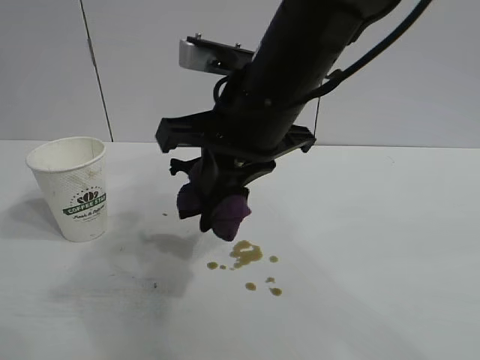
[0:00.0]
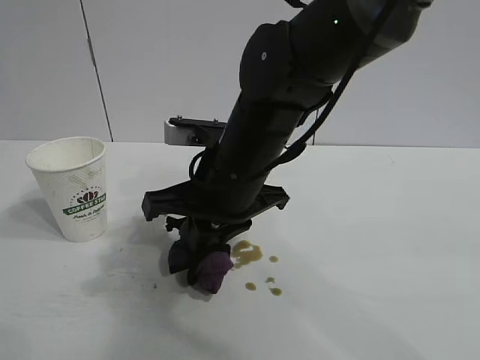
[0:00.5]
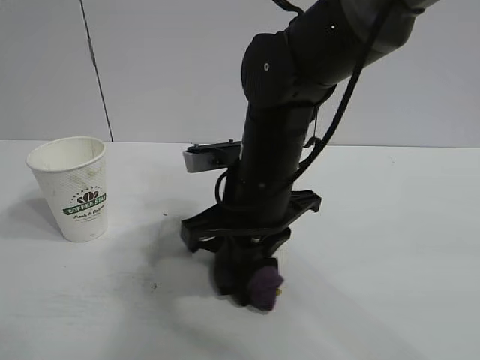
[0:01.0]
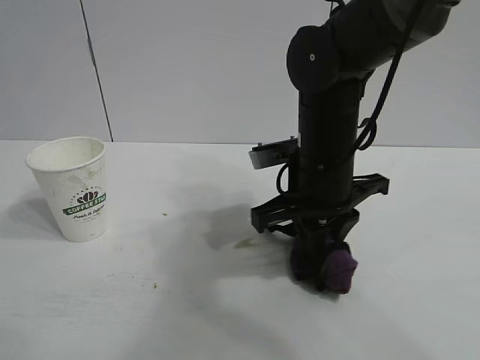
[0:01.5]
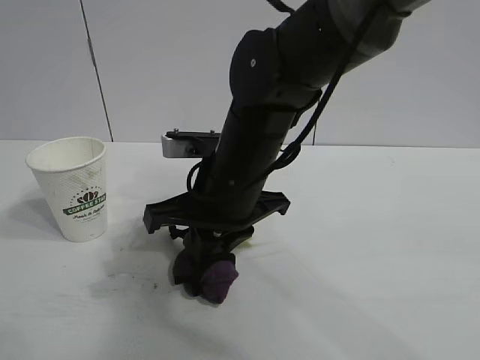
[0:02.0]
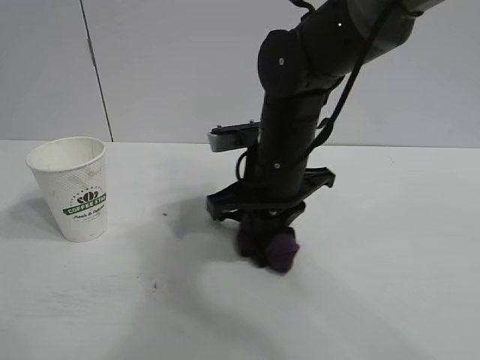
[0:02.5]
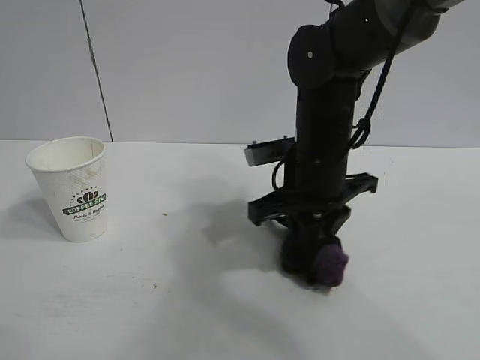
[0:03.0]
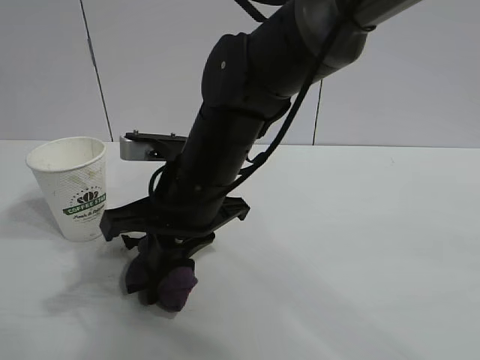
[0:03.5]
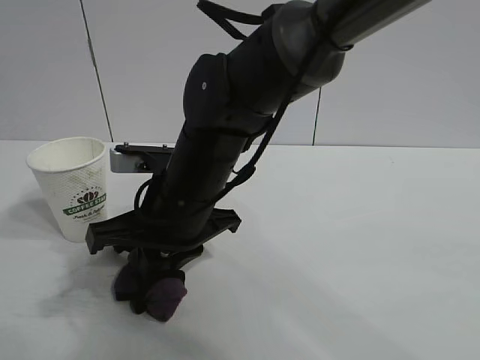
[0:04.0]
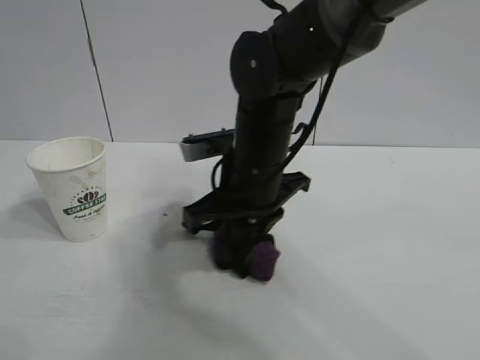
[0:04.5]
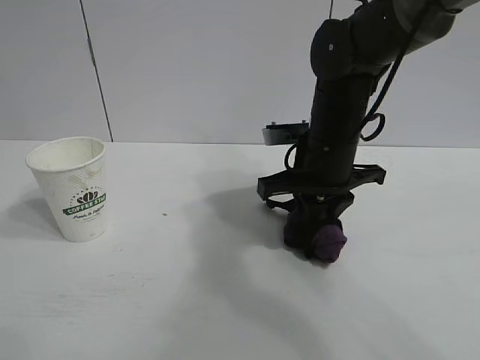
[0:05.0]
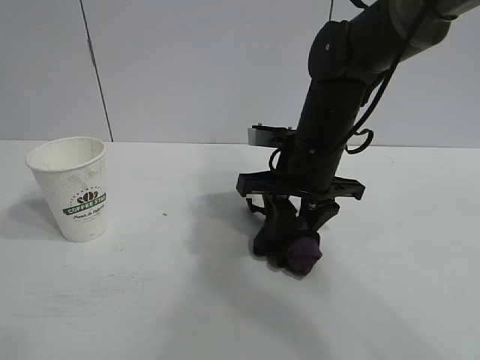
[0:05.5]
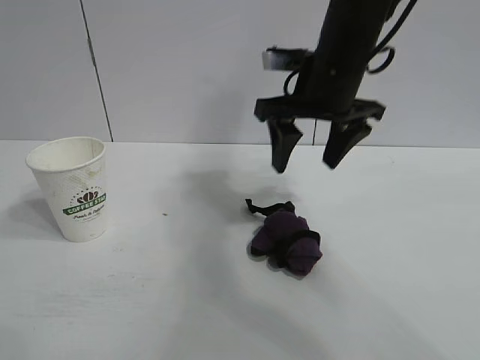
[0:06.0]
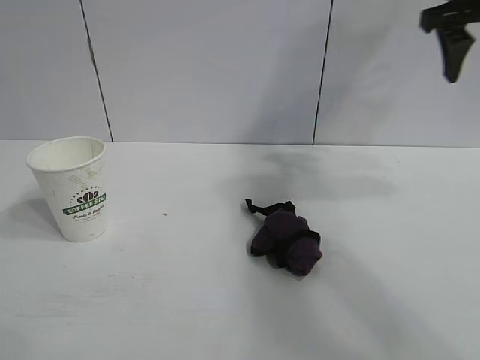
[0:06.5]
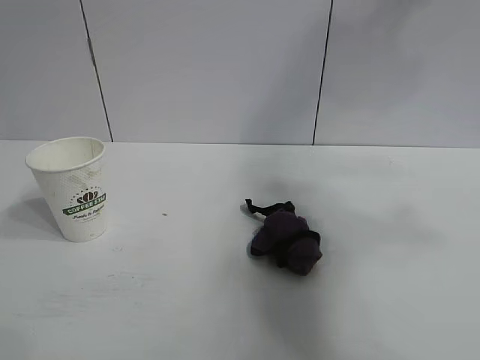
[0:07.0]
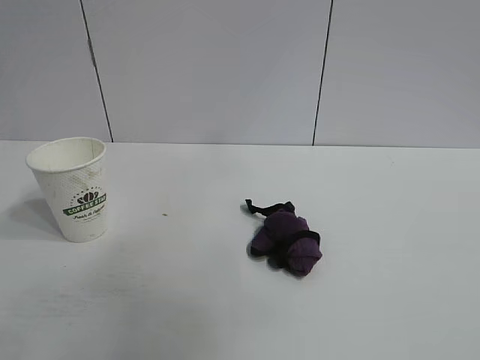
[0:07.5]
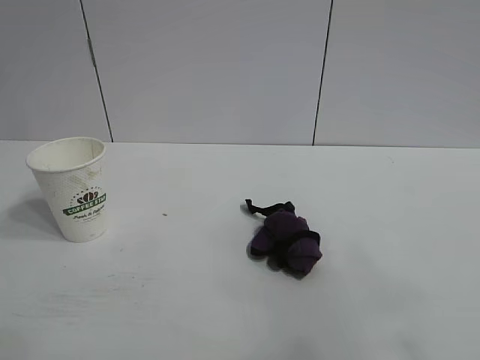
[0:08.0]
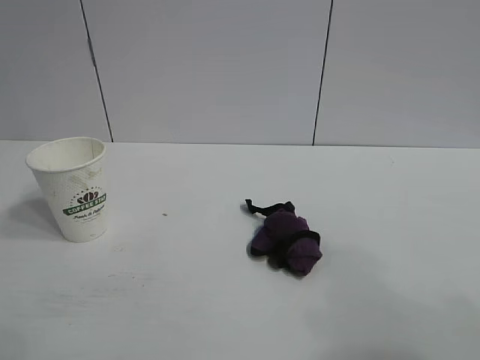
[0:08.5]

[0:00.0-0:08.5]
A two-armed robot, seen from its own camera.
Task of the whole recording: the left gripper pick up the fallen cup and place it upright, the right gripper grasp the black rag and wipe the stain on the table, the right gripper put the black rag back in its original position.
Step, 0:00.0 to 0:05.0: Wipe the stains off the table with the rag with right gripper.
